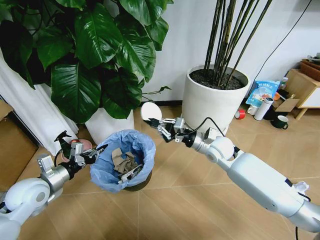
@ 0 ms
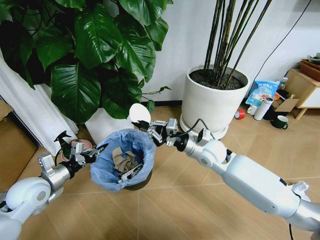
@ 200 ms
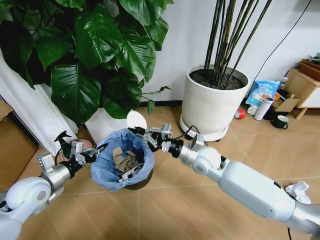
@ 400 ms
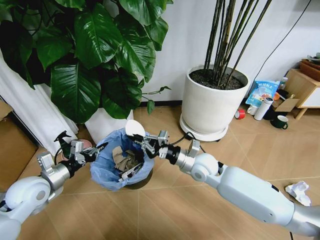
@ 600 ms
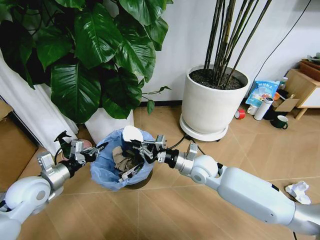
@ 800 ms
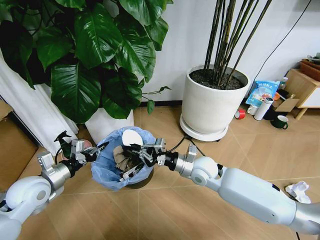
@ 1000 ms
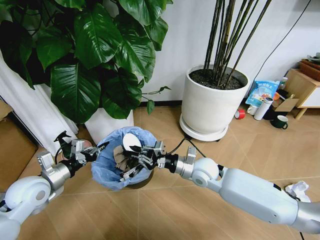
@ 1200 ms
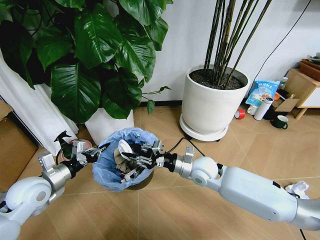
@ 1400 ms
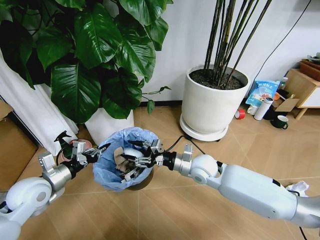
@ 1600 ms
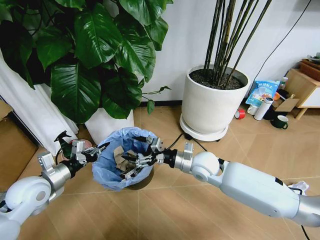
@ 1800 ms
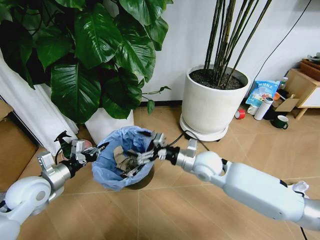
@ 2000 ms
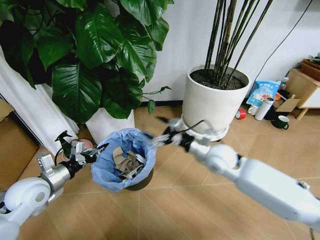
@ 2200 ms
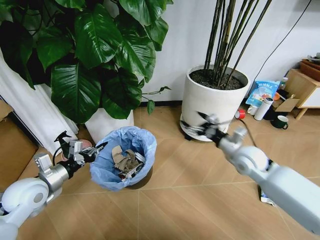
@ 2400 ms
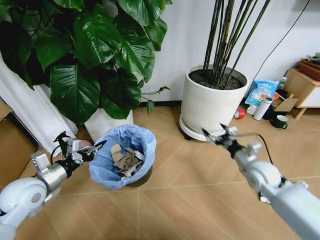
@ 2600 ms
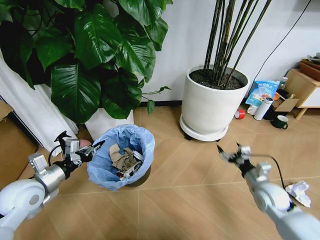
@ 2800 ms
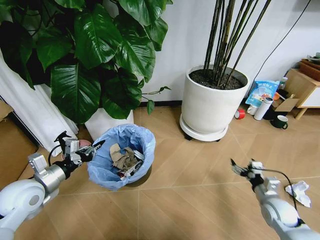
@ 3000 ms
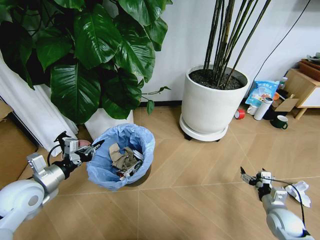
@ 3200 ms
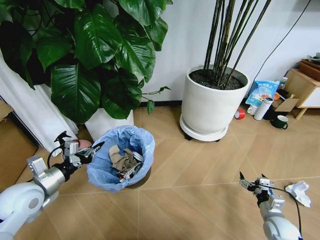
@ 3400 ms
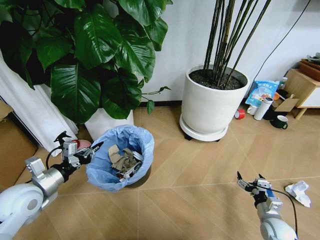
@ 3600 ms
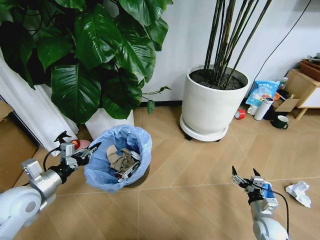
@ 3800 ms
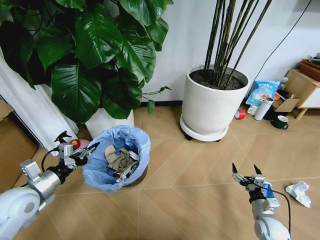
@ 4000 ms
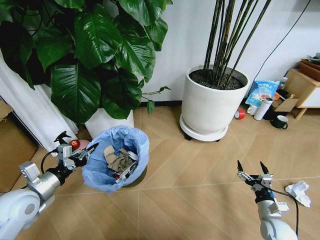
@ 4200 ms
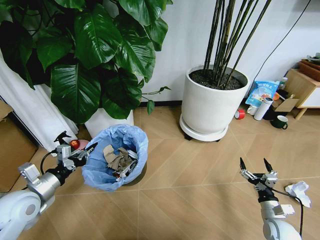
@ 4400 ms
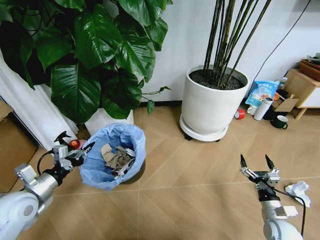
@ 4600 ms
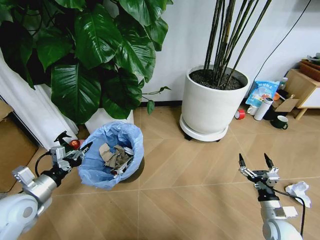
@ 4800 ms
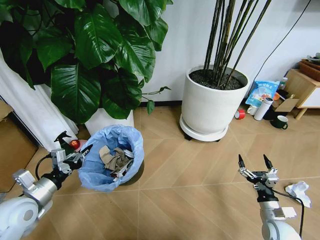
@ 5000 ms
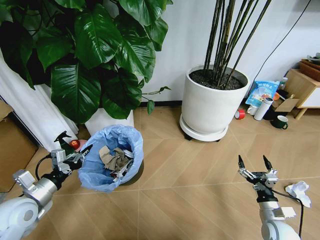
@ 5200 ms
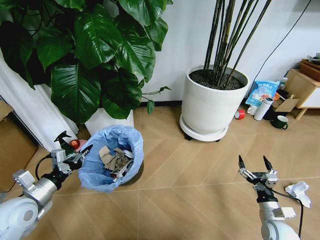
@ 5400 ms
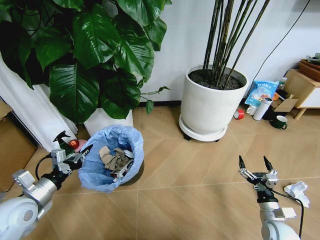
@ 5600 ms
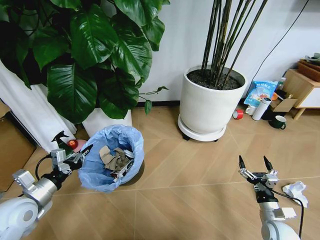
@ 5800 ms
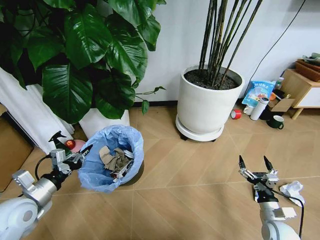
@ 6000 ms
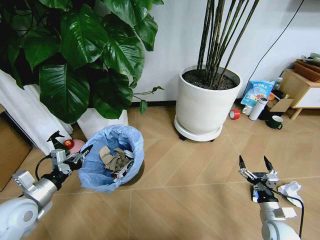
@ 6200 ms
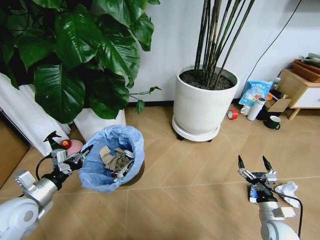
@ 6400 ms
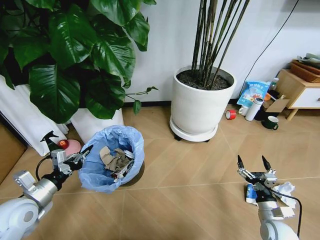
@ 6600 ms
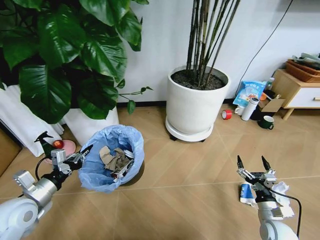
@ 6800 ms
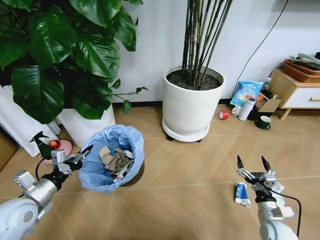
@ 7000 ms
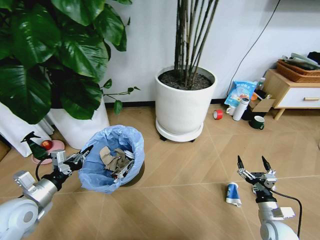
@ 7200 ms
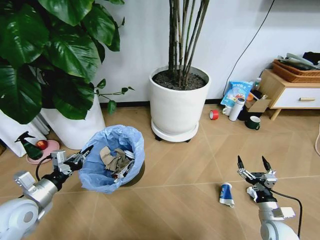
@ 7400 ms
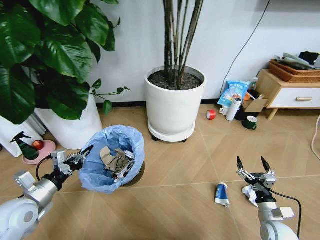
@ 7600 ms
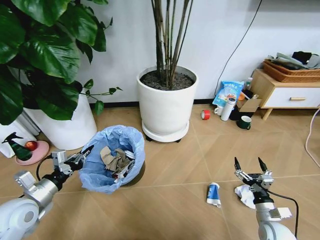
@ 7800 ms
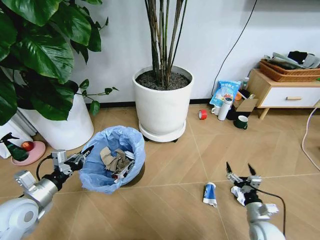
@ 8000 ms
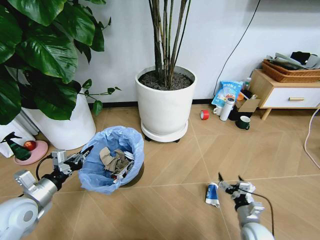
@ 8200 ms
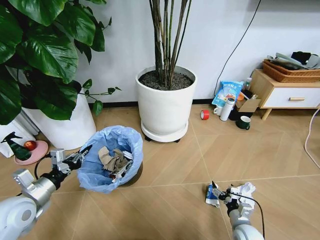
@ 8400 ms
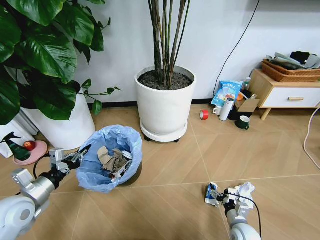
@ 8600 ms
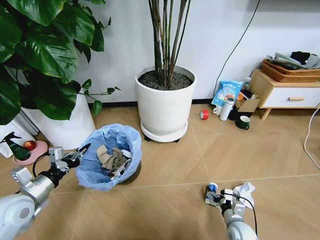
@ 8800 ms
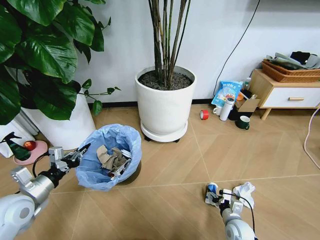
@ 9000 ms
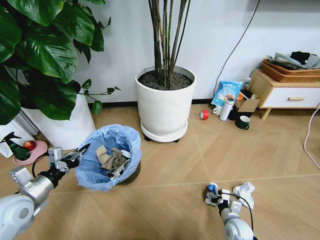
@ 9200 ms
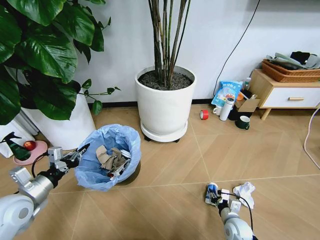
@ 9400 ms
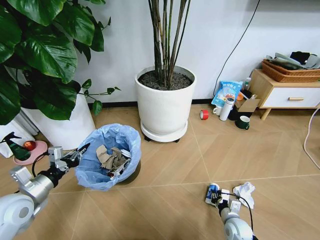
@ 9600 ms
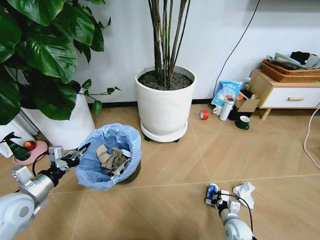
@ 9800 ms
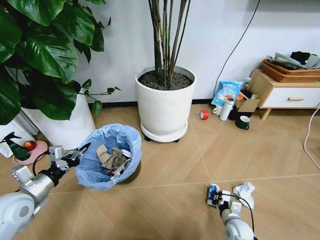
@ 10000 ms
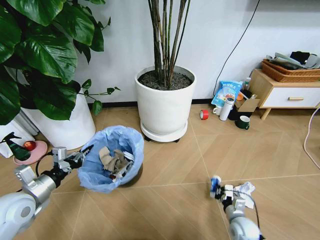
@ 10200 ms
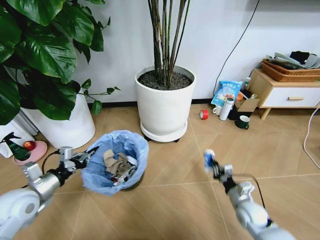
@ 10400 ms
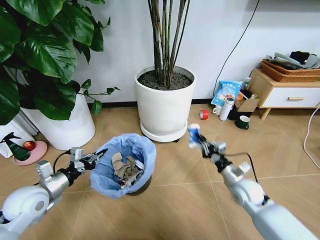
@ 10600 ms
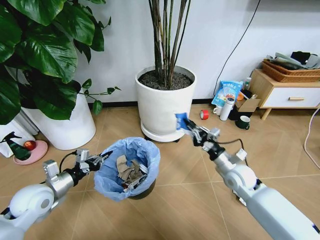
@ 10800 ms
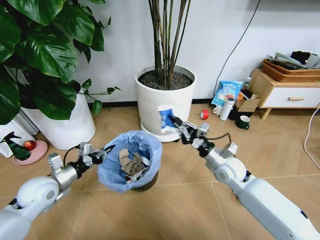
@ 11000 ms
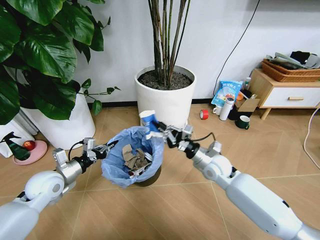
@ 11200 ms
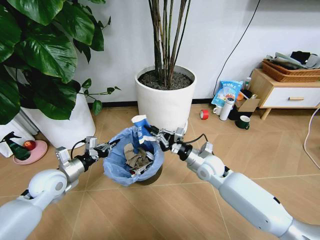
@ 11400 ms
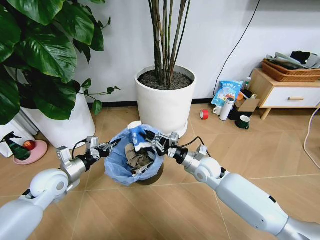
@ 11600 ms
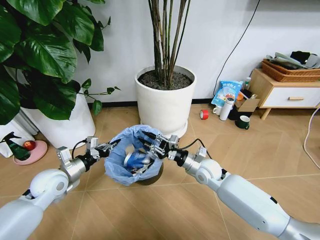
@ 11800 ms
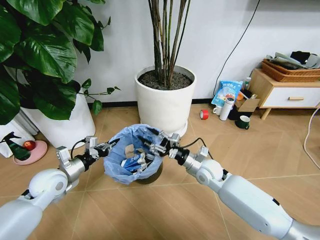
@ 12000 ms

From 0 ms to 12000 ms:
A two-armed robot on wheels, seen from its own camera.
Task of the whole recording: Pick up the trash bin and place the garbage on the floor into it.
From 0 ms to 1600 ms: The right gripper heads to the left and backward, covering approximately 10 cm, and opens.
From 1600 ms to 3000 ms: The right gripper travels to the right, downward and backward by roughly 30 cm, and opens up.
From 3000 ms to 4400 ms: The right gripper heads backward, covering approximately 5 cm.
From 7600 ms to 9000 ms: The right gripper travels to the left and downward by approximately 10 cm.
From 9000 ms to 10400 ms: The right gripper travels upward by roughly 5 cm, and closes its fingers.
From 10400 ms to 12000 ms: The left gripper shifts about 5 cm forward, while the right gripper is displaced to the left, forward and upward by about 25 cm, and opens.

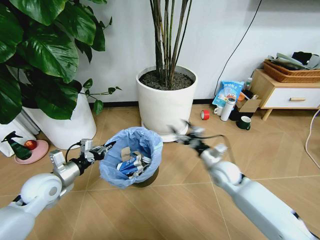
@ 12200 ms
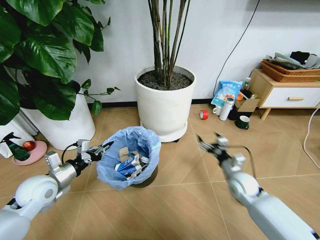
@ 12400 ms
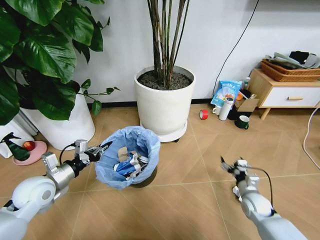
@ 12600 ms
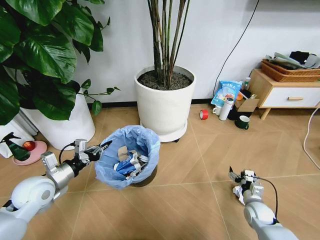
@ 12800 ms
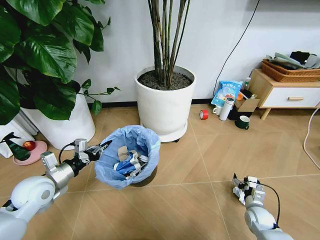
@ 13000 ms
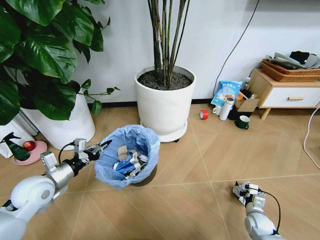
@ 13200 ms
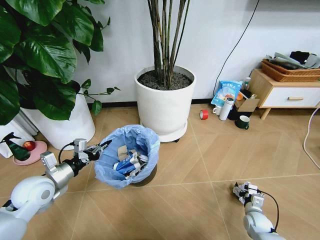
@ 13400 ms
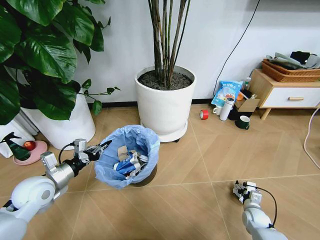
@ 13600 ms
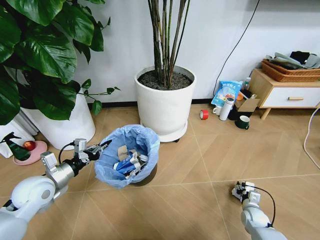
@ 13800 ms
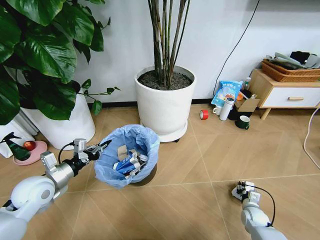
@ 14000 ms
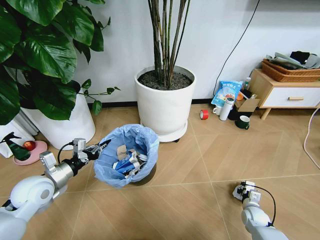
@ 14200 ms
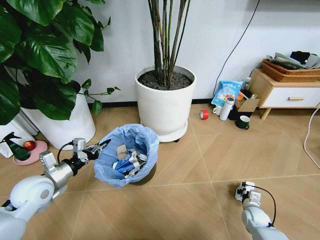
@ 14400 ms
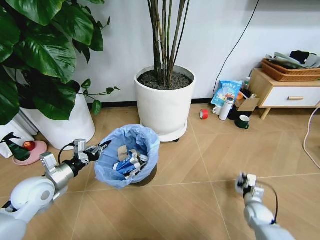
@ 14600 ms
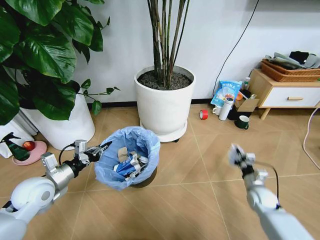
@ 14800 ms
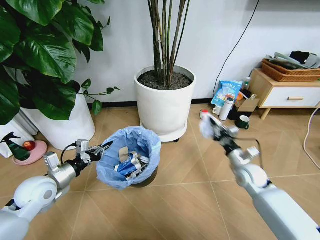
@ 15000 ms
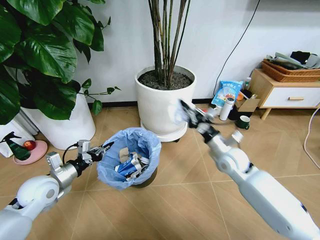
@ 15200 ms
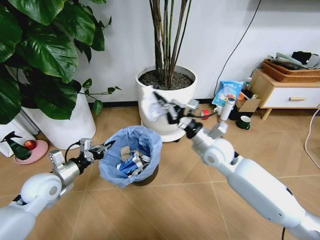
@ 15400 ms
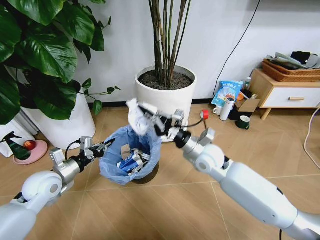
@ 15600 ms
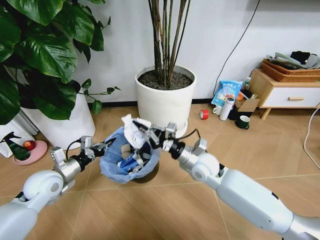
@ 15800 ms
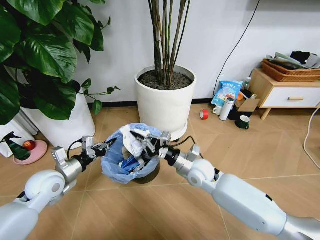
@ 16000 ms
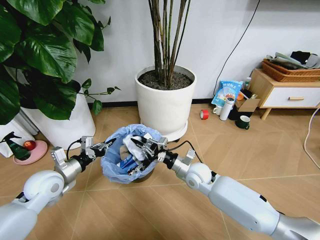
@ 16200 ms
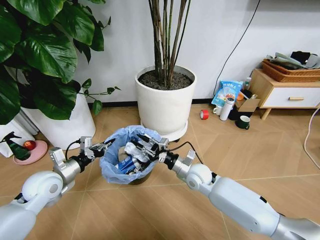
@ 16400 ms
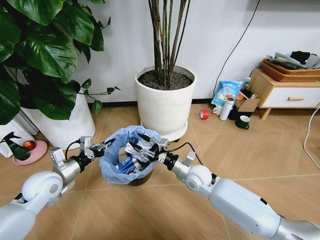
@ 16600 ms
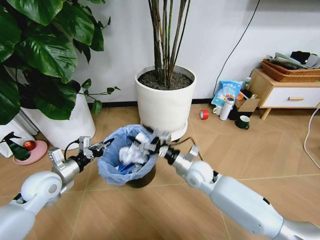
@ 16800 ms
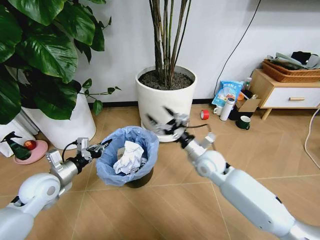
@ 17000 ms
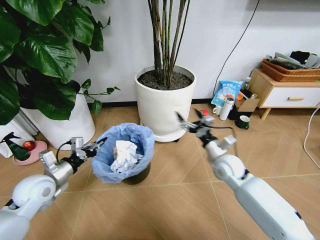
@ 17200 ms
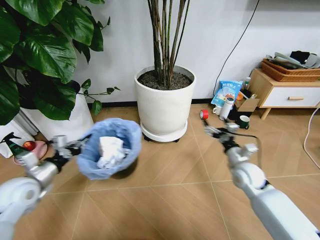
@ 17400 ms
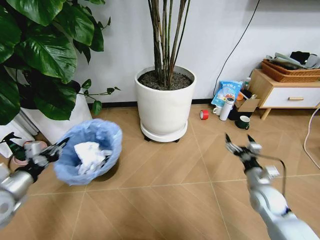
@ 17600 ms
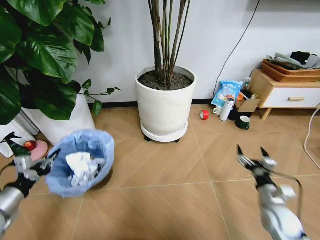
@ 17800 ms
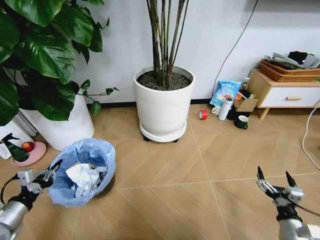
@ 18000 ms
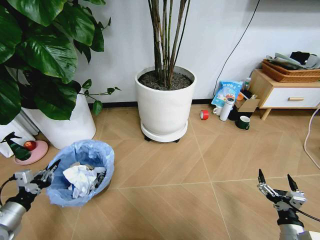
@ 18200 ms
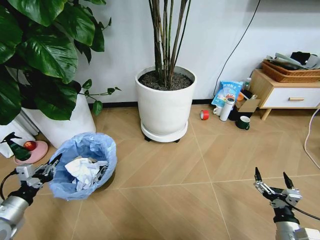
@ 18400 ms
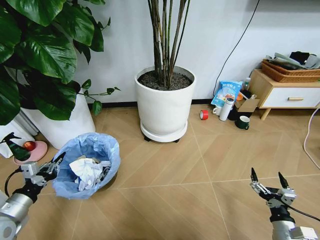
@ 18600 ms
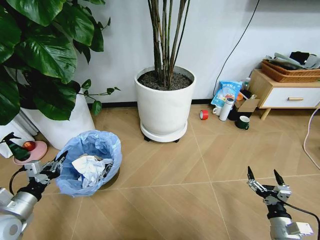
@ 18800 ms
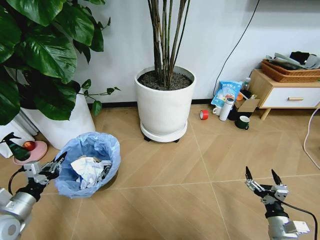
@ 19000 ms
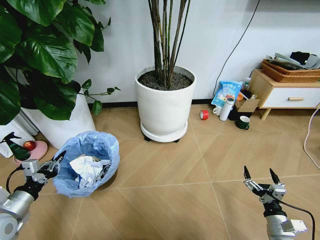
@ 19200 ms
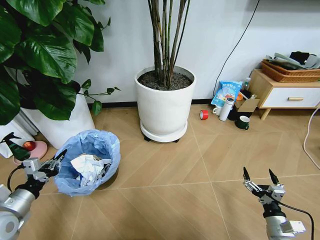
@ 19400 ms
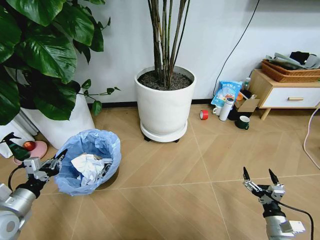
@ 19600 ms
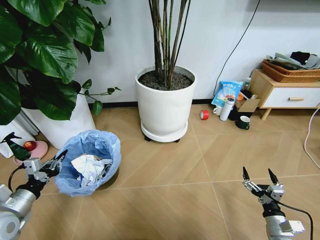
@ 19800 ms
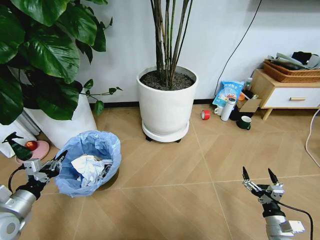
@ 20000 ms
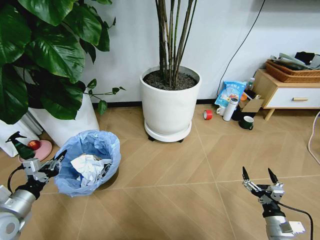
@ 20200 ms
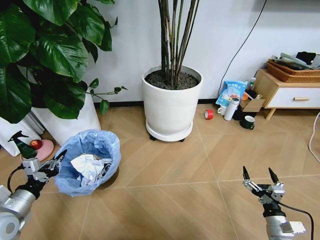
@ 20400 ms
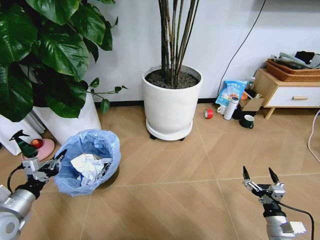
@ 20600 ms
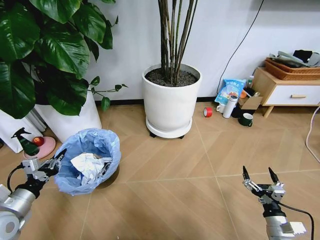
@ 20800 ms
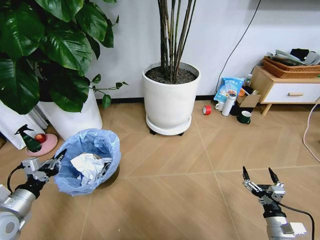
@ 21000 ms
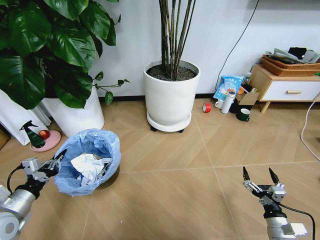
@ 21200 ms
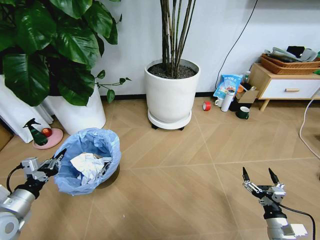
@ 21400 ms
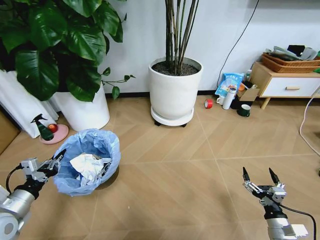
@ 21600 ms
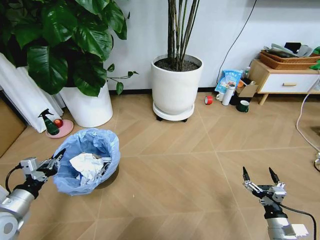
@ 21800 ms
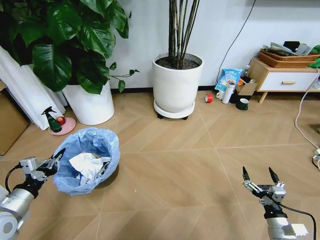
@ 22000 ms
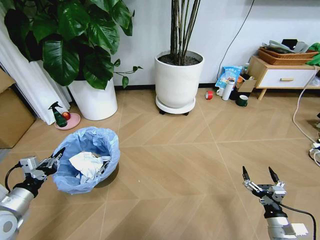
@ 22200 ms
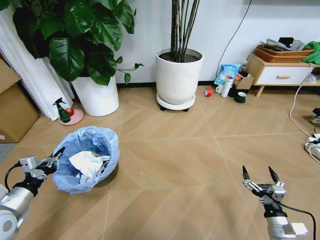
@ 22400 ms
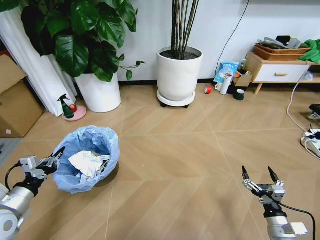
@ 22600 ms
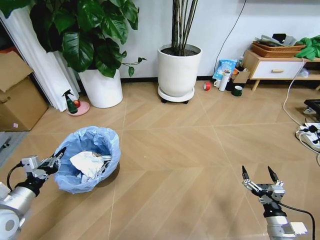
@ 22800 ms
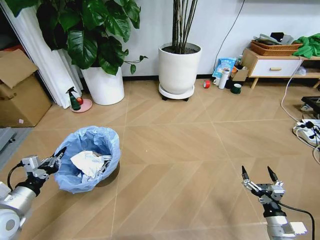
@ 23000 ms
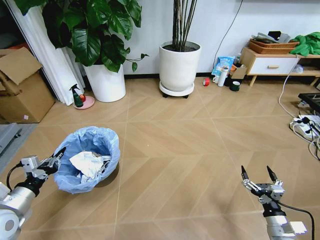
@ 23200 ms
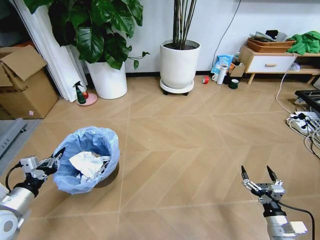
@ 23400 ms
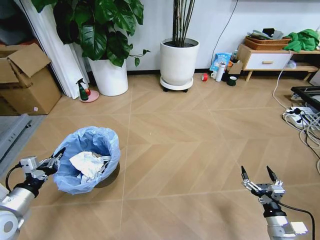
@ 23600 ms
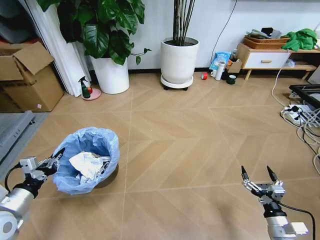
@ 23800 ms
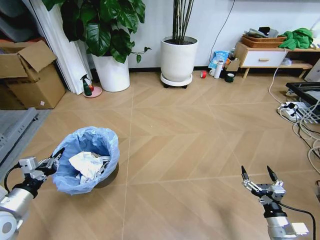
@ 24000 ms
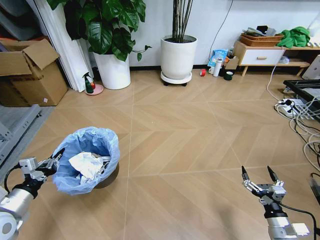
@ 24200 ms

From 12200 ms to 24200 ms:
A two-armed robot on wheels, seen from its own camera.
Task of the whole recording: Pick up the trash bin and place the garbage on the floor into it.
From 12200 ms to 13800 ms: The right gripper travels downward, to the right and backward by about 30 cm.
From 13800 ms to 15200 ms: The right gripper travels upward, to the left and forward by approximately 35 cm, and closes.
From 15200 ms to 16600 ms: The right gripper heads to the left and downward, covering approximately 15 cm, and opens its fingers.
From 16600 ms to 18200 ms: The left gripper shifts some 20 cm backward and to the left. The right gripper travels backward and to the right by some 35 cm, and opens up.
From 18200 ms to 19800 ms: There are only small adjustments of the grippers.
